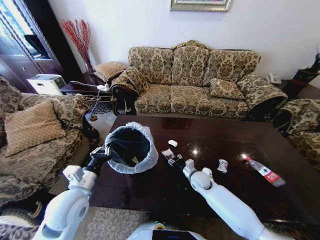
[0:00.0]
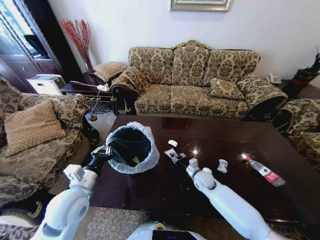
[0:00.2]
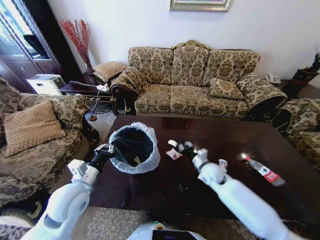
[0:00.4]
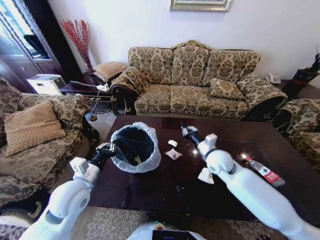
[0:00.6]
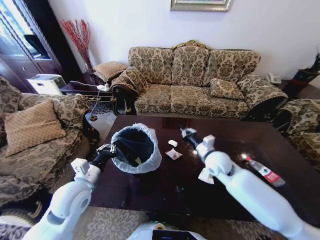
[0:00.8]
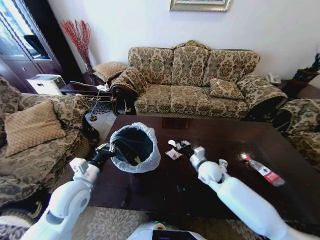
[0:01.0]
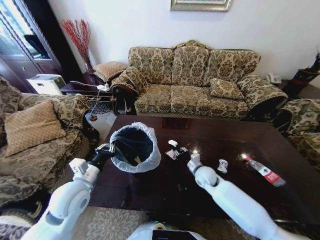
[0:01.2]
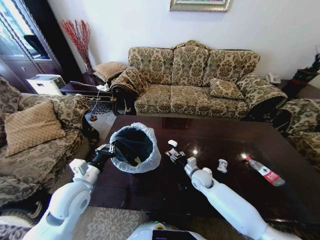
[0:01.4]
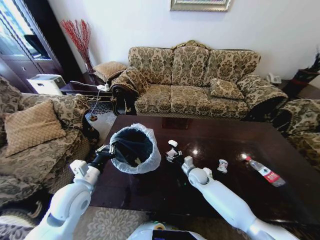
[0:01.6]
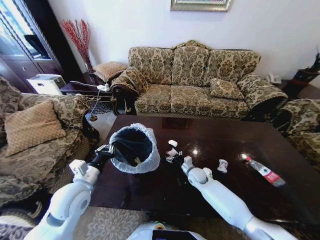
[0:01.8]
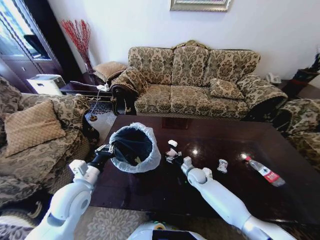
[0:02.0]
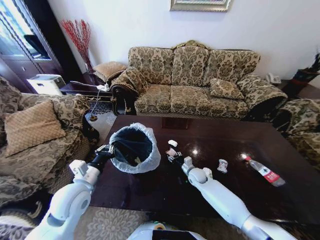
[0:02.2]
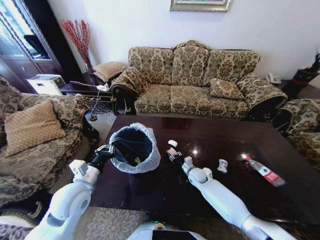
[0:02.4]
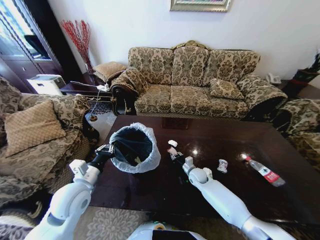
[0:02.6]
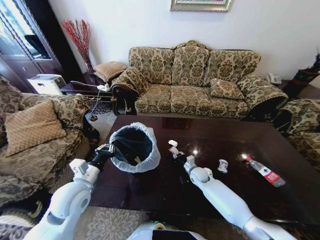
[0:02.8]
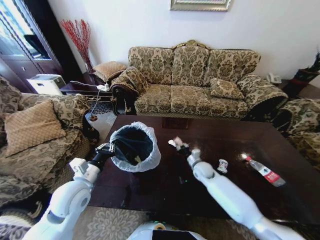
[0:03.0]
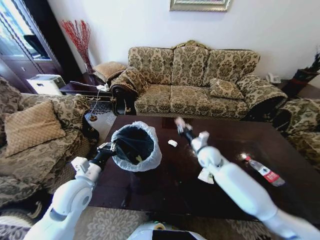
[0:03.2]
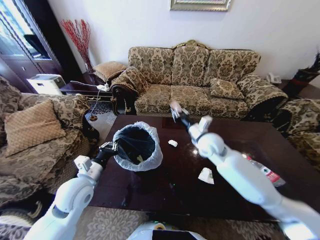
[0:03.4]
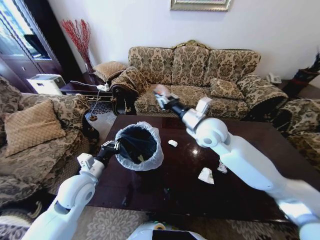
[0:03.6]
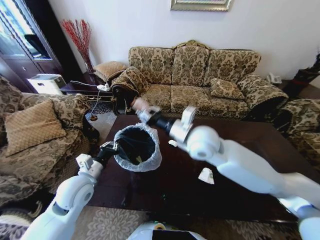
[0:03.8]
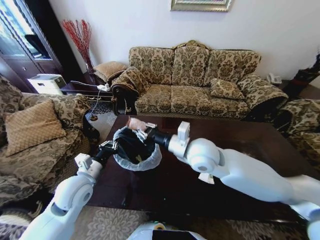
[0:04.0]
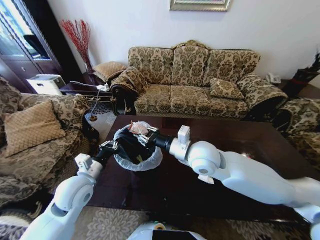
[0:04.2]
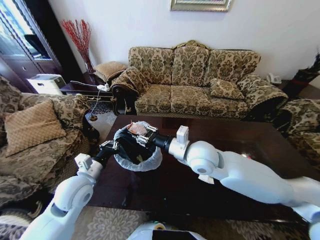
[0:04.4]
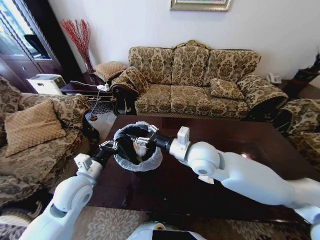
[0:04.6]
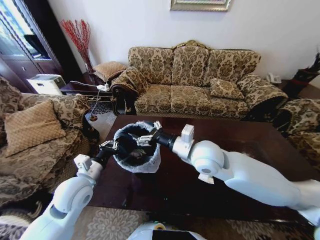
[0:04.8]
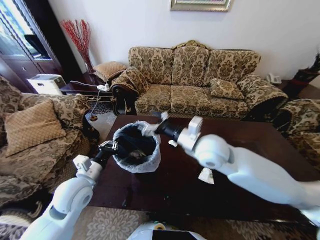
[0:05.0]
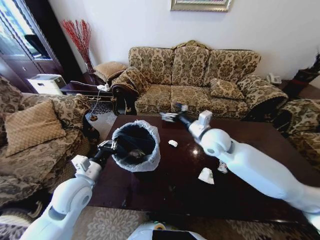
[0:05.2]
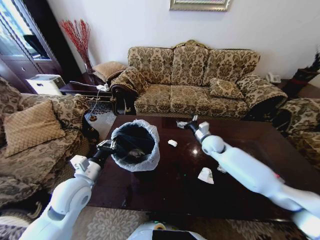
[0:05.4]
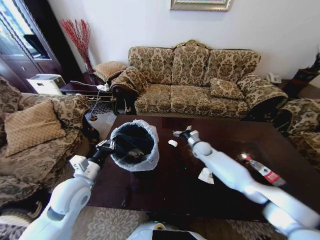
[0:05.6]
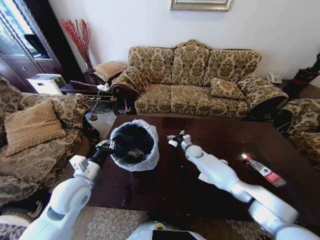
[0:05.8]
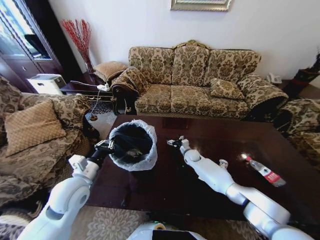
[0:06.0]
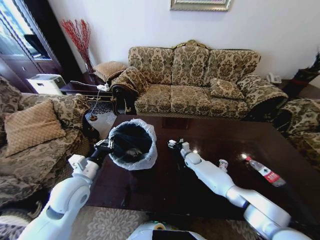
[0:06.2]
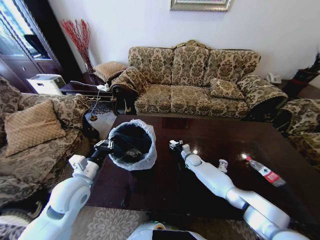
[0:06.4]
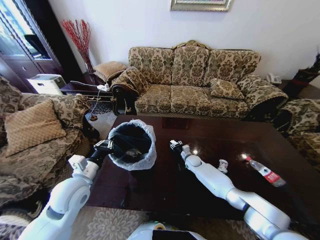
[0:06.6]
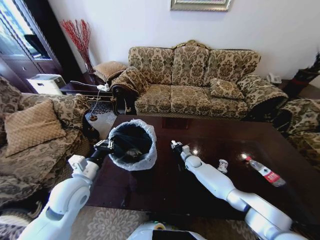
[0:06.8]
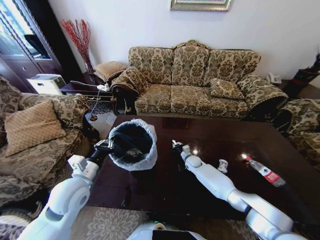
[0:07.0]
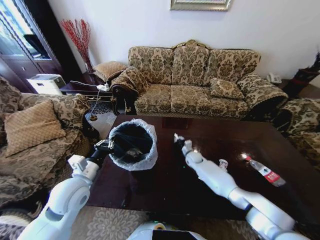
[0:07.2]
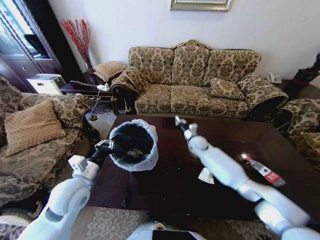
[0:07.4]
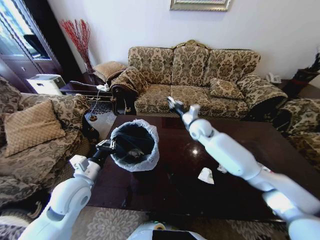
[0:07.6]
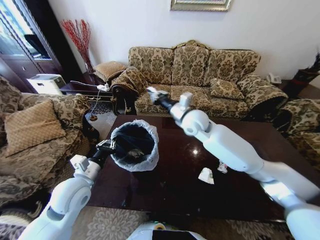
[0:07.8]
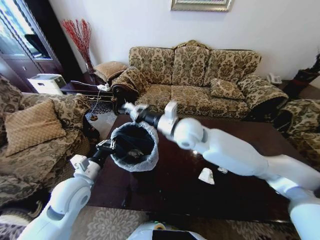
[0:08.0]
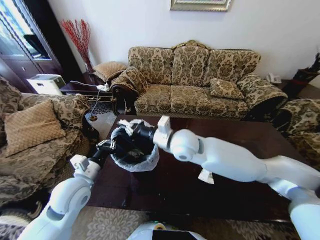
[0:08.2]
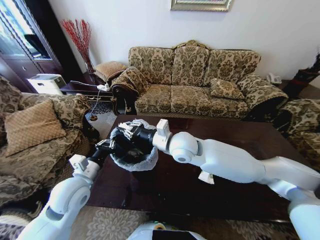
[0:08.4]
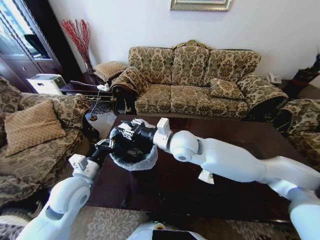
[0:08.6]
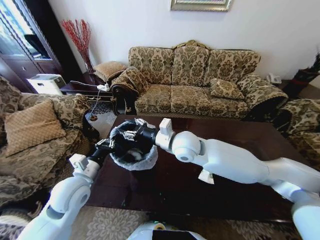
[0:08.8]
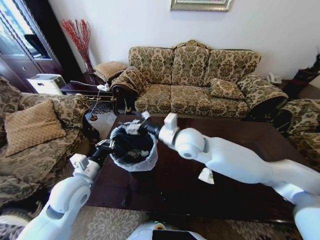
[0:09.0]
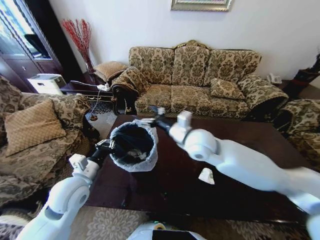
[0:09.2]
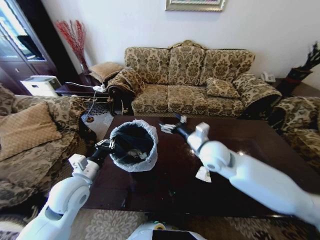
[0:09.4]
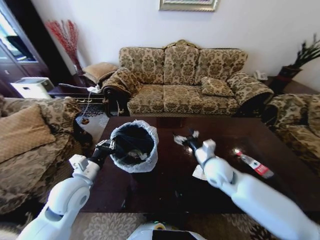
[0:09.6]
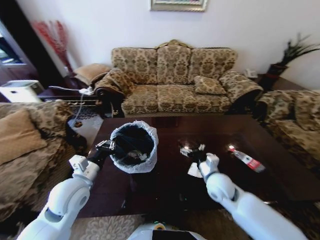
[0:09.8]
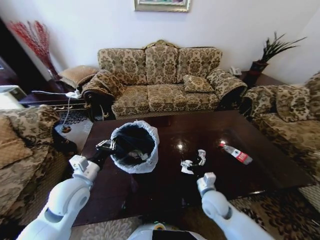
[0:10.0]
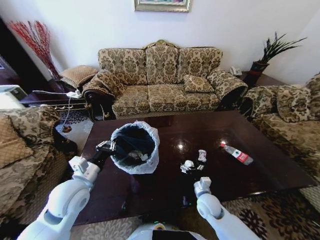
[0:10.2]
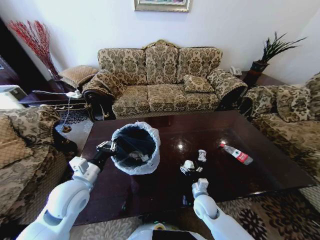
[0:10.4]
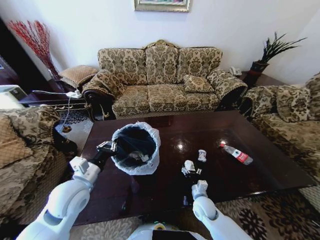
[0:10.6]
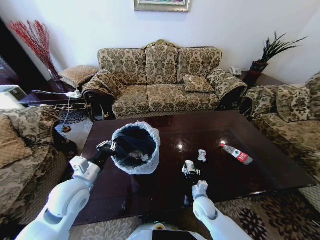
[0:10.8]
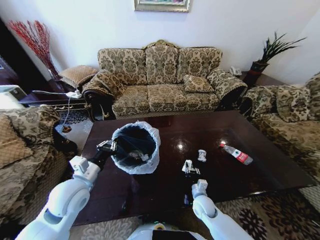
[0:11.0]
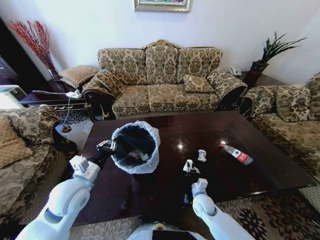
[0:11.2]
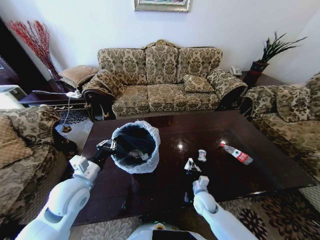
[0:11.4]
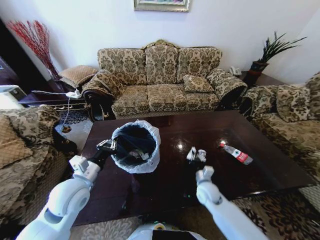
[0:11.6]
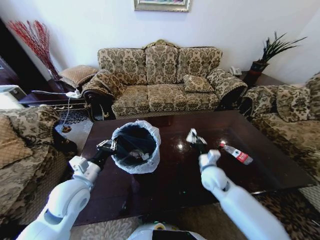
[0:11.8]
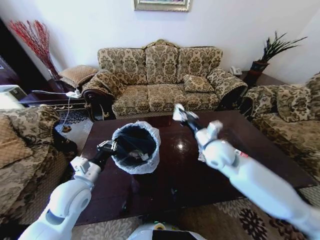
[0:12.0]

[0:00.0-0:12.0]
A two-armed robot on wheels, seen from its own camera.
Task of the whole recording: Move to the front of the table and place the trash on the table into the trash bin.
0:00.0 to 0:01.6: The right gripper travels upward and back again, some 20 cm each way, and closes, then opens again.
0:01.6 to 0:03.0: The right gripper closes its fingers.
0:03.0 to 0:04.4: The right gripper shifts approximately 30 cm upward and to the left.
0:04.4 to 0:06.0: The right gripper moves downward and forward, some 35 cm, and opens its fingers.
0:06.0 to 0:07.6: The right gripper is displaced upward by approximately 25 cm, and closes.
0:07.6 to 0:09.0: The right gripper goes some 15 cm backward and to the left, and opens its fingers.
0:09.0 to 0:10.4: The right gripper goes some 35 cm downward.
0:10.4 to 0:12.0: The right gripper moves upward, roughly 30 cm, and closes.

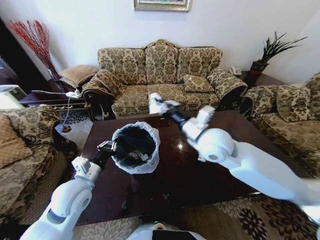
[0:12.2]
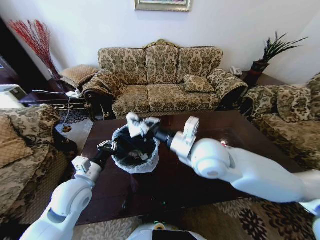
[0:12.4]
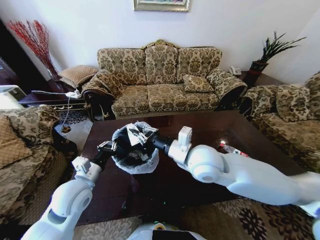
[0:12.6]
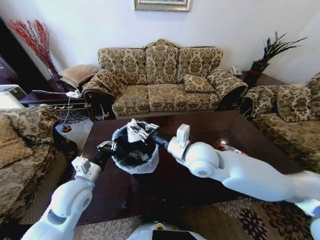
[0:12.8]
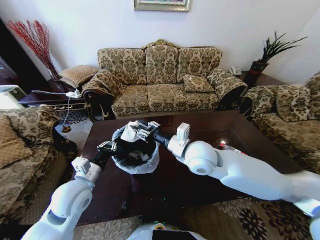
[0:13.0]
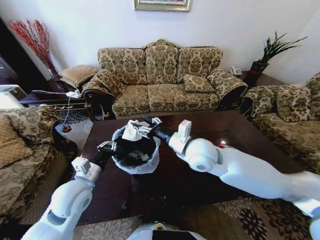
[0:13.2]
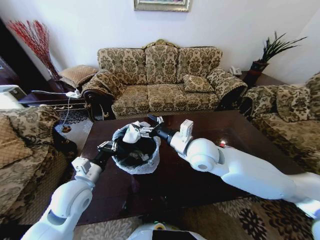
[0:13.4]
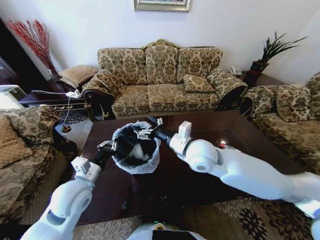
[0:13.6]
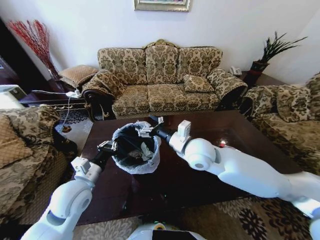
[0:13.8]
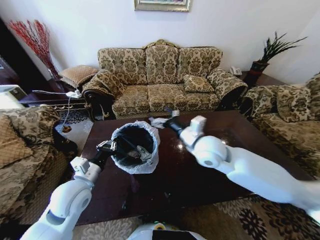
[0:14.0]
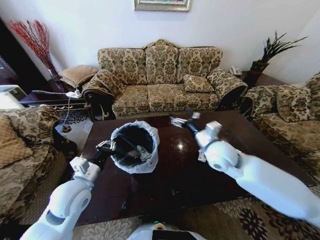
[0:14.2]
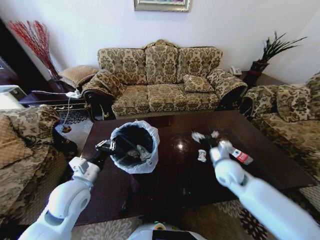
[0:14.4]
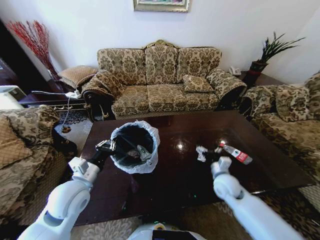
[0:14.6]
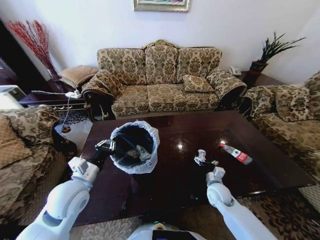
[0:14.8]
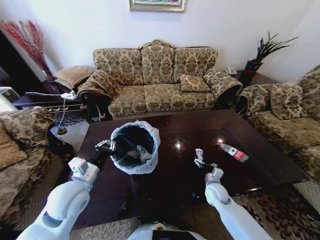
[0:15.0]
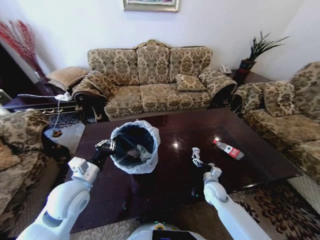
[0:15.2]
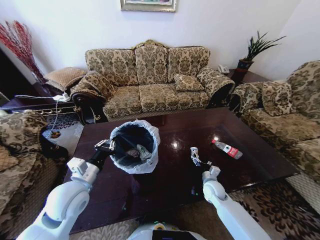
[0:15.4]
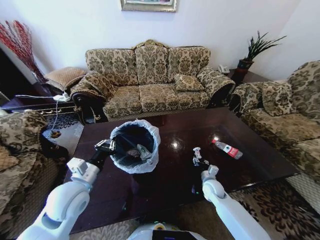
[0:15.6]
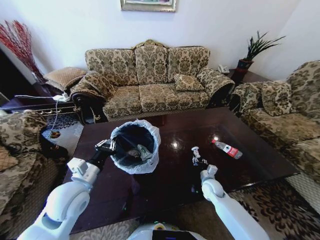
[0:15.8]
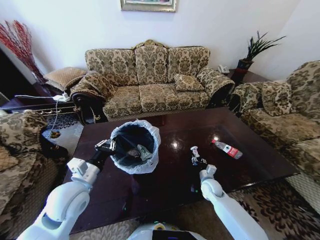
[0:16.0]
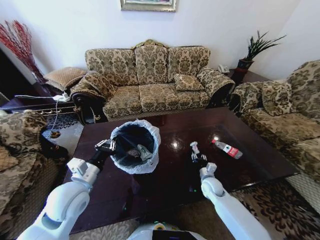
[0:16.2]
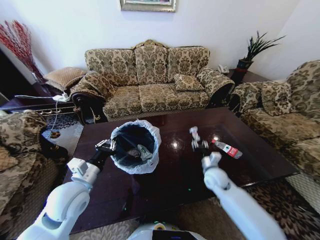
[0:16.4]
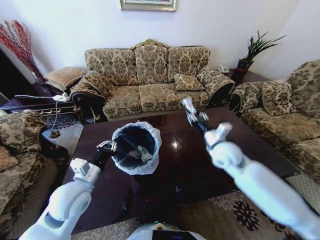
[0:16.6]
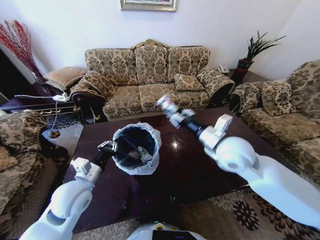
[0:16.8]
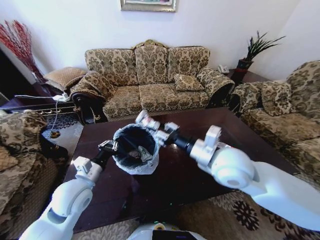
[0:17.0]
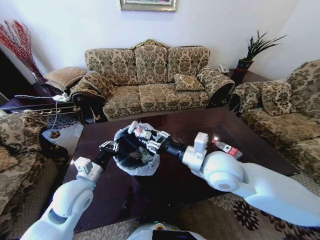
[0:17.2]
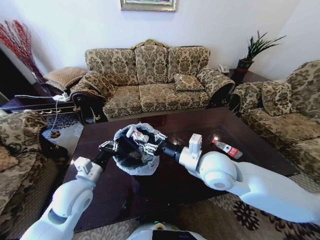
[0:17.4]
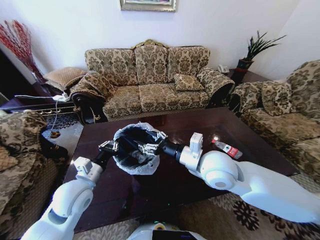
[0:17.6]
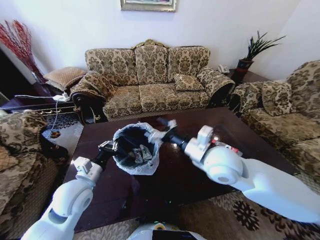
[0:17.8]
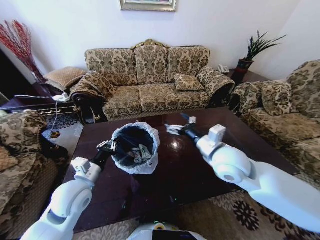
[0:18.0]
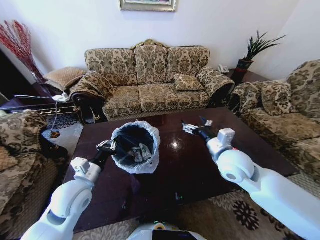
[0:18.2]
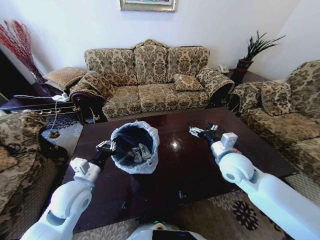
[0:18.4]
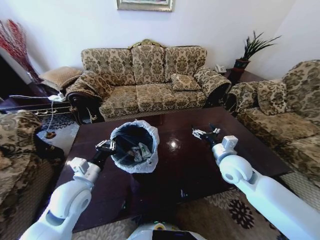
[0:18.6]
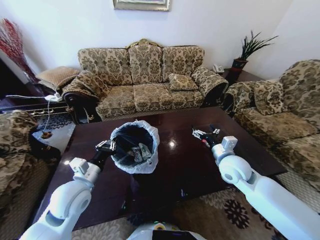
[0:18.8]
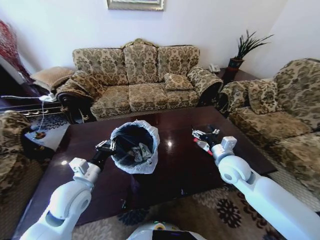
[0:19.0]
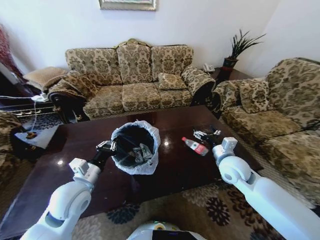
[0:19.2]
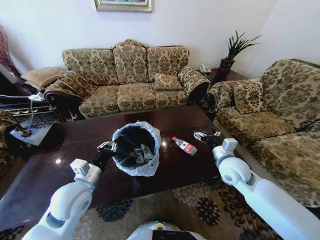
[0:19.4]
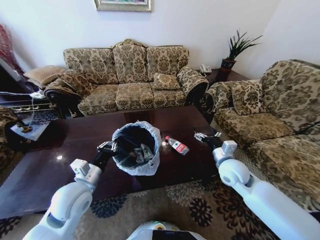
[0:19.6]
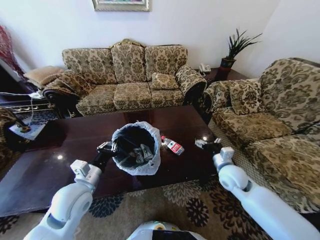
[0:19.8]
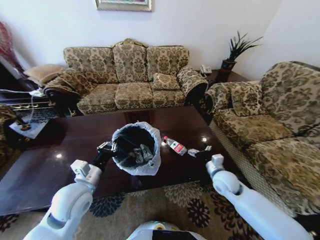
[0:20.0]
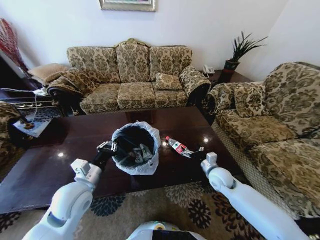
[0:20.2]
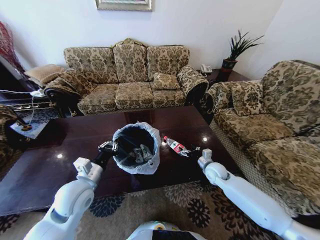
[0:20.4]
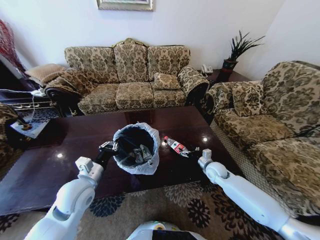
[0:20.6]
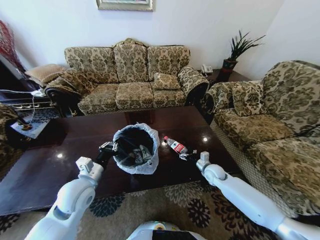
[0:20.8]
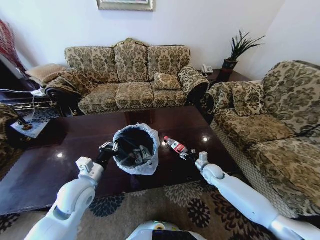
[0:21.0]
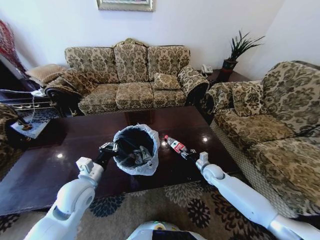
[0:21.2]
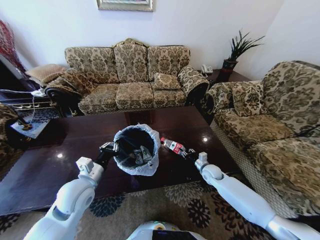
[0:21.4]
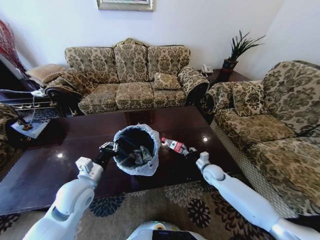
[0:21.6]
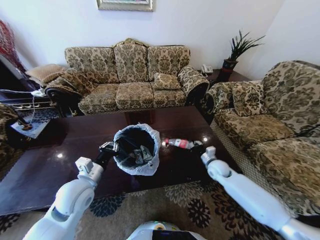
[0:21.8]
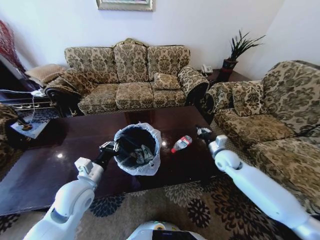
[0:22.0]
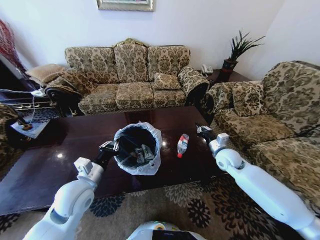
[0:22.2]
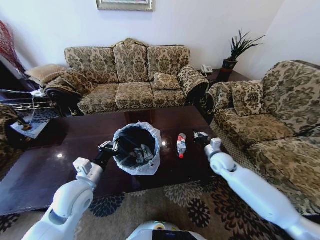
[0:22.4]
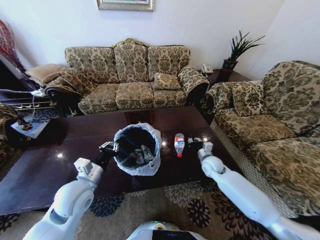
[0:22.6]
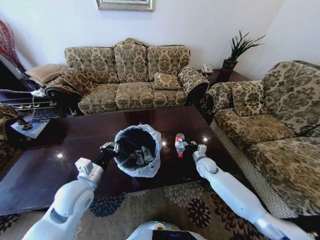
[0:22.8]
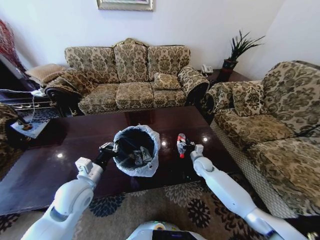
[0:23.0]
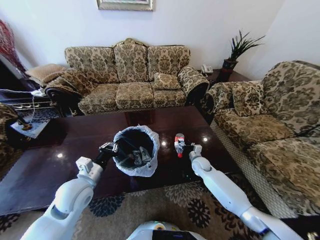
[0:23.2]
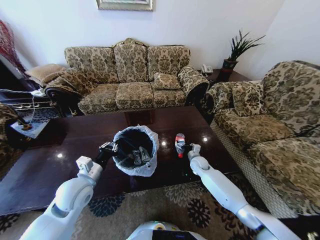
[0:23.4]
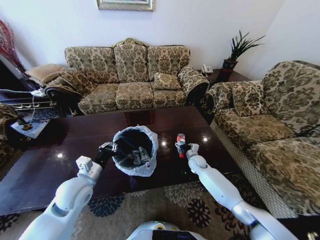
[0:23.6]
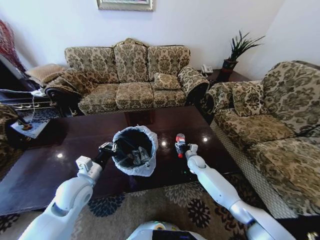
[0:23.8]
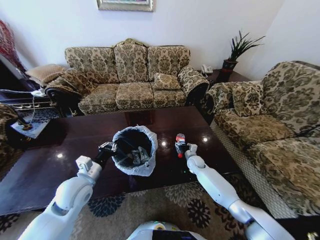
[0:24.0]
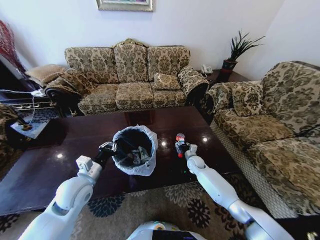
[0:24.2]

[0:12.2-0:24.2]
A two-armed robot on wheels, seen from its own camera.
Task of the whole recording: Move to the front of the table and place the trash on the table into the trash bin.
0:12.2 to 0:13.8: The right gripper shifts by roughly 5 cm, and opens its fingers.
0:13.8 to 0:15.2: The right gripper goes approximately 35 cm downward and to the right.
0:15.2 to 0:16.6: The right gripper moves upward, approximately 25 cm, and closes its fingers.
0:16.6 to 0:18.2: The right gripper goes roughly 5 cm backward, and opens up.
0:18.2 to 0:19.8: The right gripper heads downward and to the right, covering some 15 cm.
0:19.8 to 0:21.2: The right gripper is displaced downward and forward by some 15 cm, and closes.
0:21.2 to 0:22.6: The right gripper moves upward, about 5 cm, and closes.
0:22.6 to 0:24.2: The right gripper travels downward and forward by some 10 cm, and opens its fingers.
